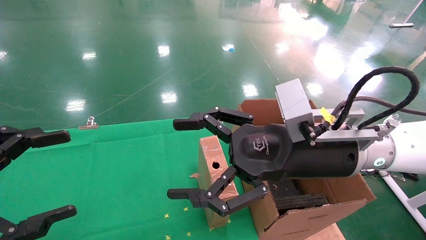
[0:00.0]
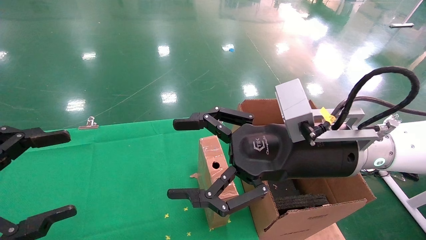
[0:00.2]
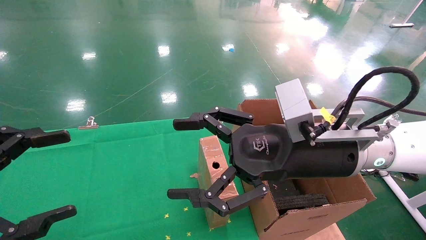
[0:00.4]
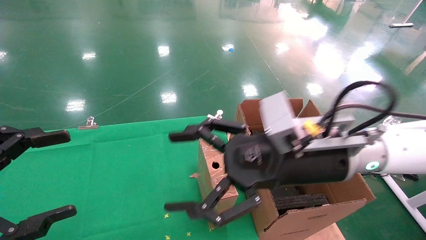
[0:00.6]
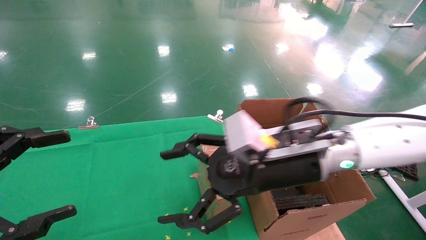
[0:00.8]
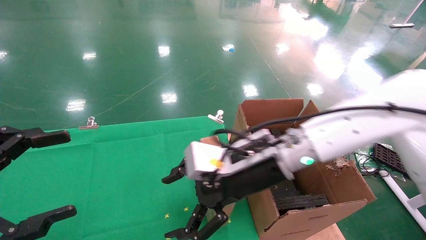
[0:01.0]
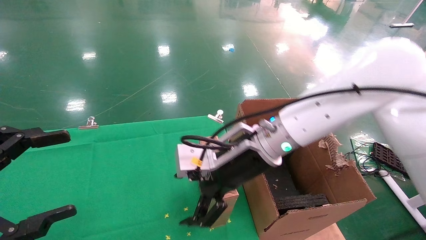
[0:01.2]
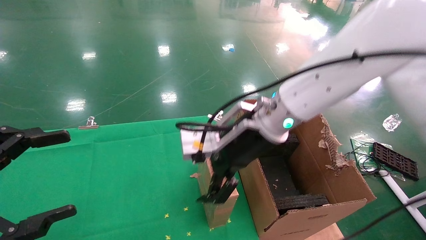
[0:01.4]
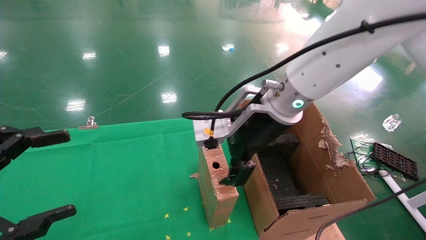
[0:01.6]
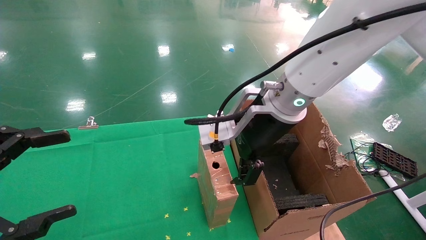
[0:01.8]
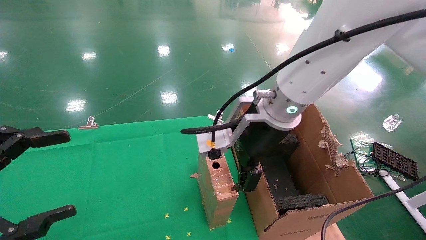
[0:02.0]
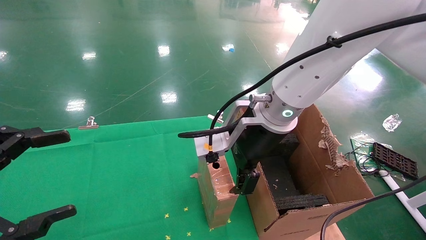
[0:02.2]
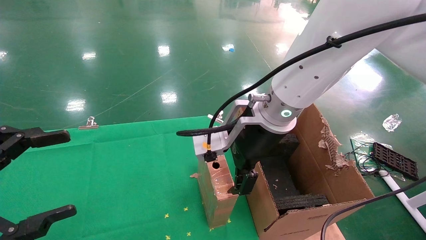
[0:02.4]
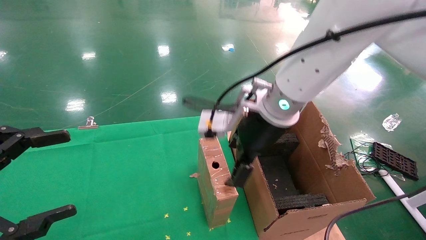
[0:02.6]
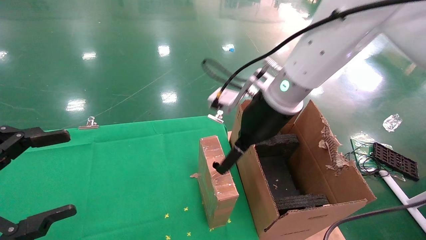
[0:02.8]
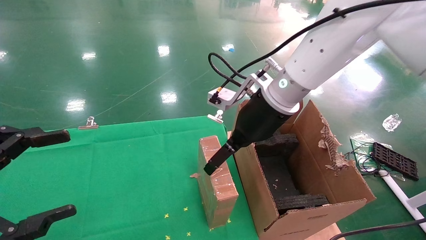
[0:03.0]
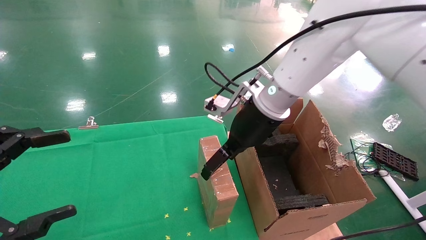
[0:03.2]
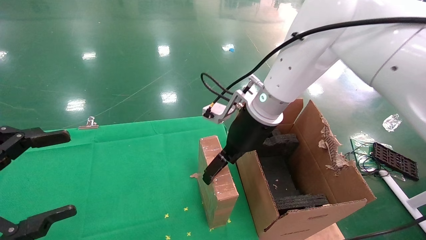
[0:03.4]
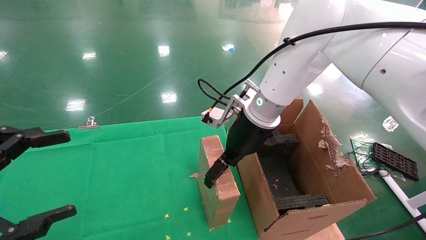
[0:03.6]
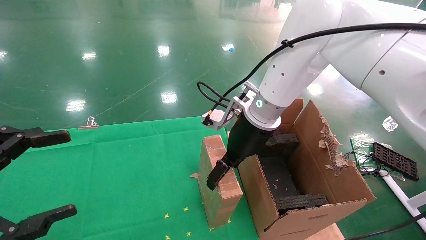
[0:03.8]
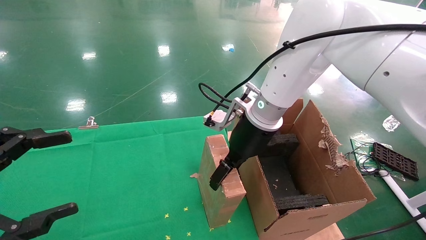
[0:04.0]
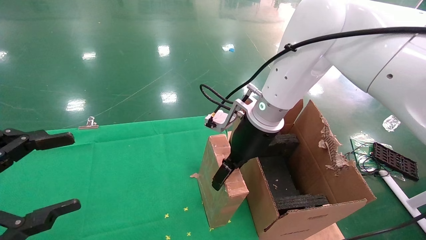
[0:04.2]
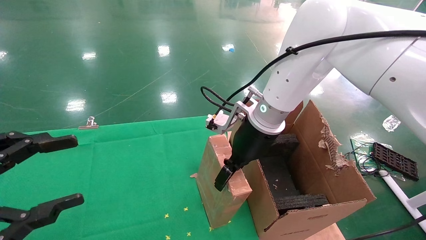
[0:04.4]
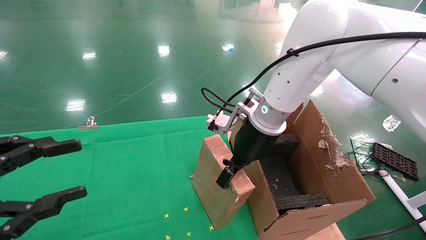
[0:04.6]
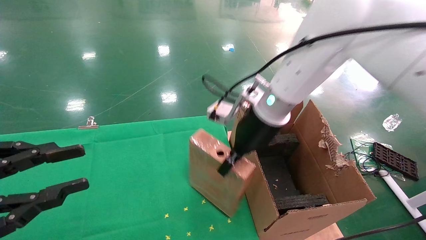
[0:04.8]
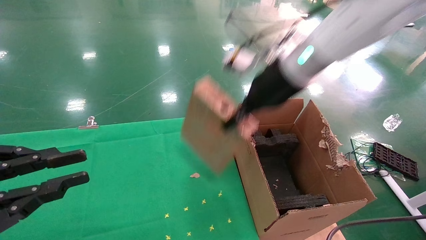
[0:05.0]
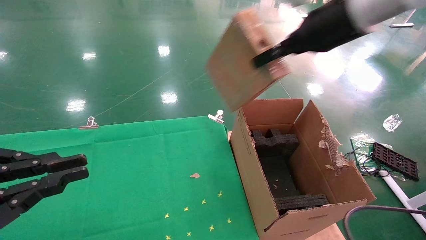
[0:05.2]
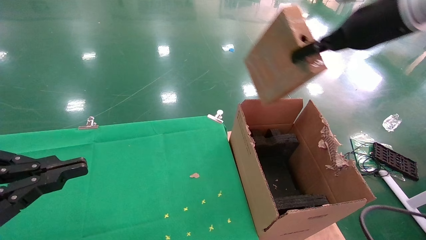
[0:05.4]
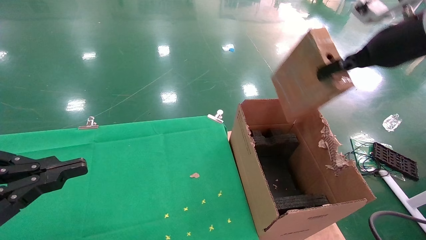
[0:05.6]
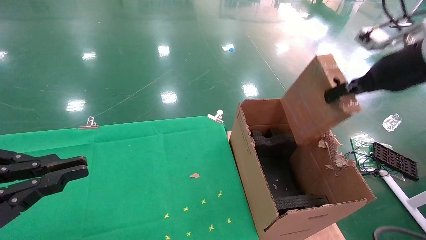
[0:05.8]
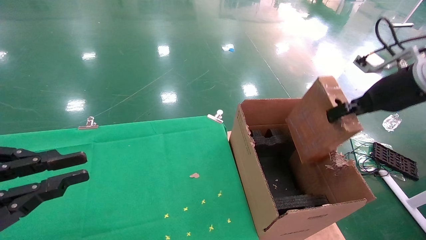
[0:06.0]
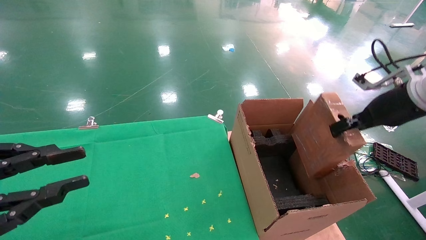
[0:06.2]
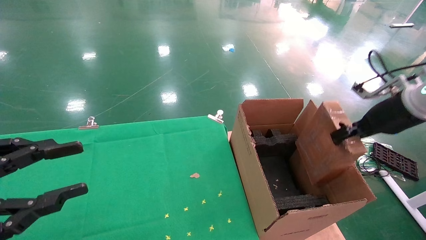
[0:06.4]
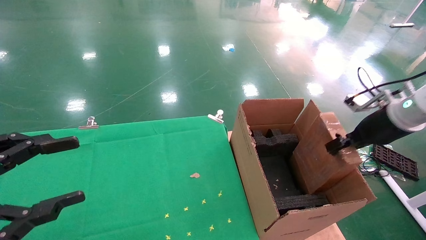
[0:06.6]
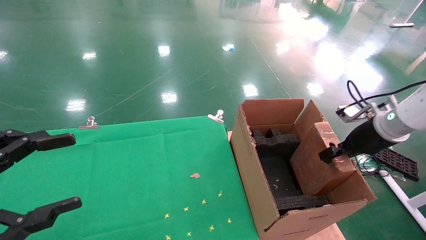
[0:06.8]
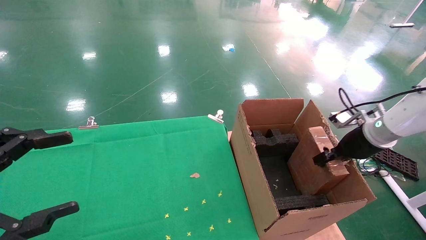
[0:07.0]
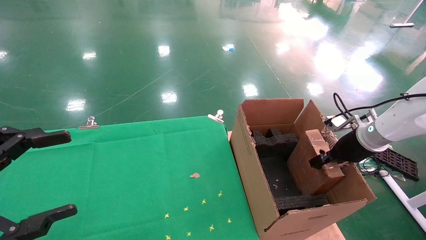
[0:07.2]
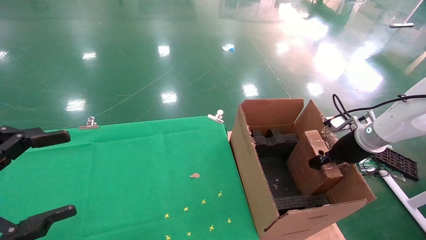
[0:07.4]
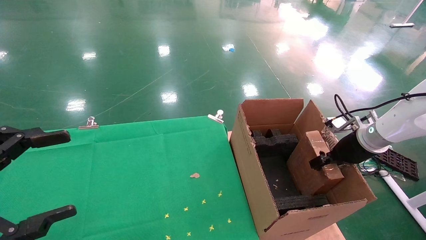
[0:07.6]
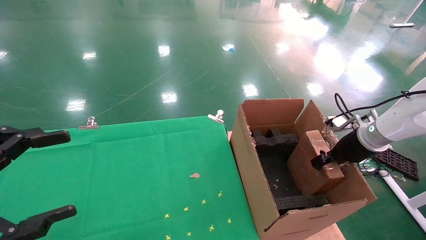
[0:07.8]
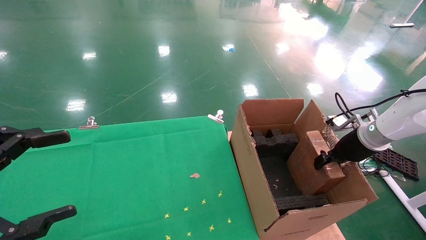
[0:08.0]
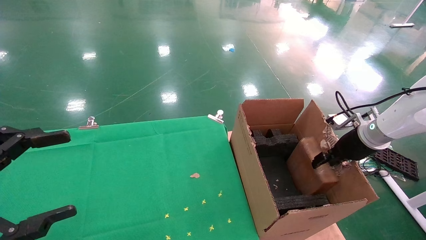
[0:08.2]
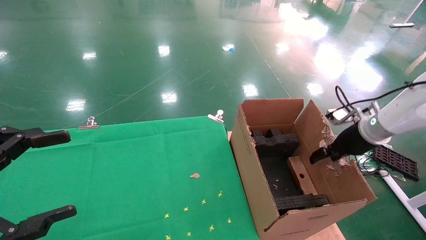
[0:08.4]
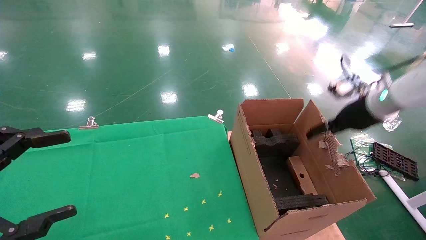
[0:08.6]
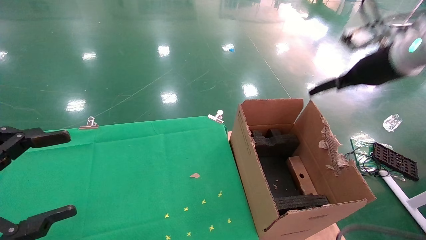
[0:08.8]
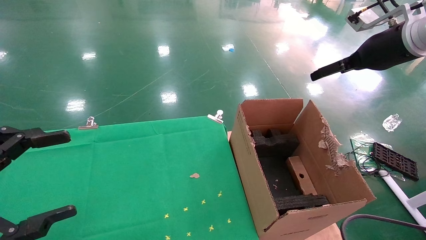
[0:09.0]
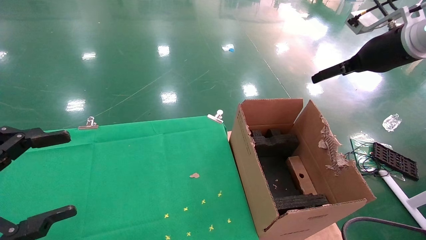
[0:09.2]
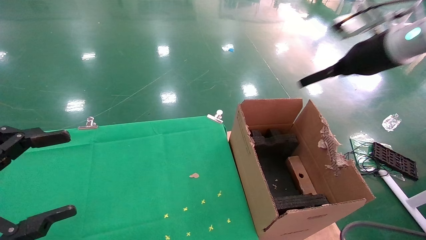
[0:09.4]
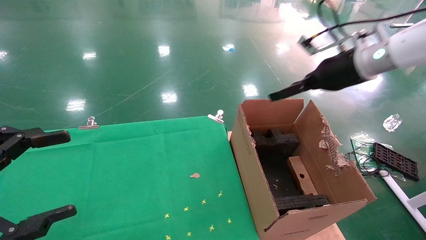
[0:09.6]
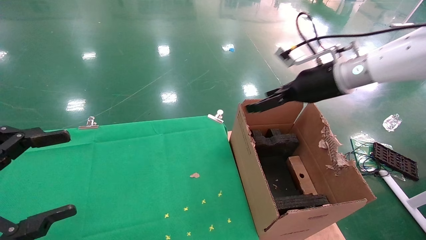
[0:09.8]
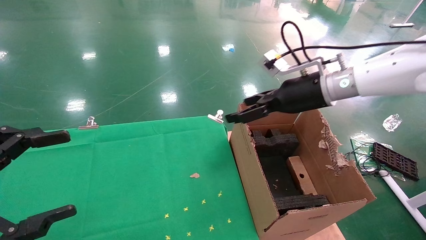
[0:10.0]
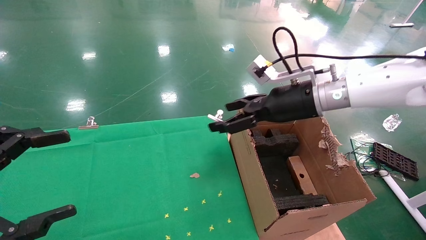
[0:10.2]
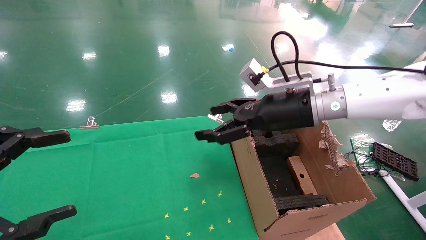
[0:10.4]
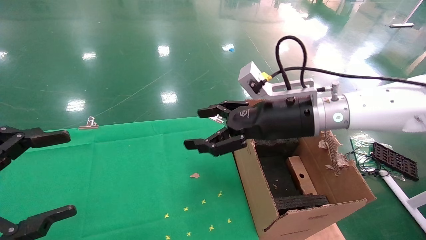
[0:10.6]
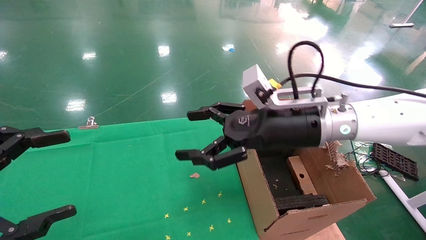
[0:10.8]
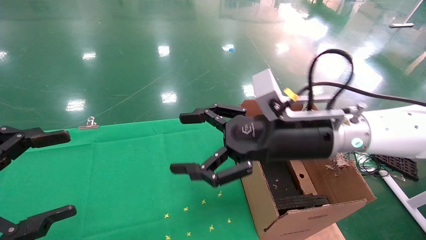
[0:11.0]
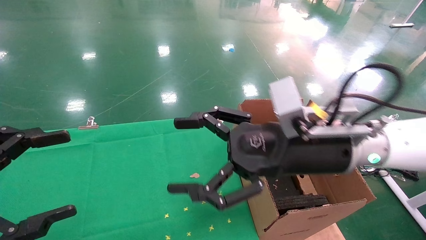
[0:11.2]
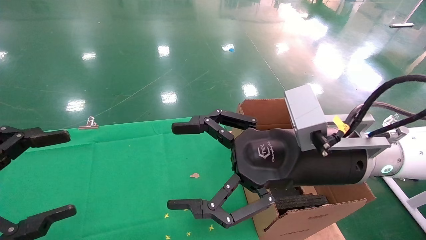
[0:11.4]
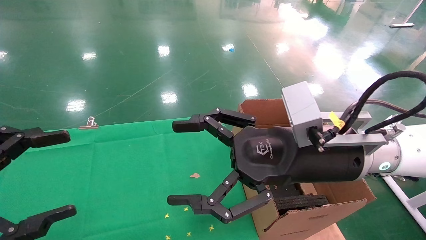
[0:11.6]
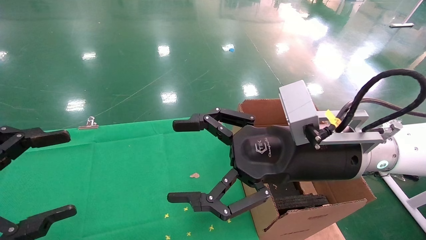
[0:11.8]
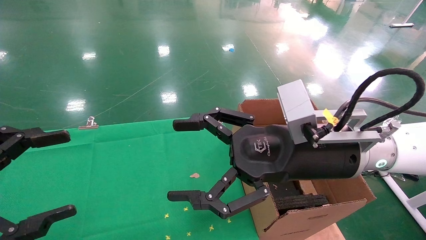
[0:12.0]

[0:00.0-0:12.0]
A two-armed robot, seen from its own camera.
Task of the whole recording: using a robotic arm to pick up a cardboard box and palace it the carton.
Step, 0:00.8 to 0:04.6: Pick up the mouse and the power cord paper box.
Step, 0:04.8 to 0:08.2: Place the mouse and the power cord paper box into the container.
0:00.0 to 0:01.6: The right gripper travels forward and to the left by approximately 10 cm.
0:01.6 to 0:03.0: The right gripper changes place by some 5 cm.
0:03.0 to 0:04.4: The right gripper closes.
0:04.4 to 0:06.0: The right gripper is displaced to the right by approximately 25 cm, and closes its fingers. Meanwhile the left gripper closes up.
0:06.0 to 0:07.6: The left gripper opens its fingers; the right gripper goes some 15 cm downward and forward.
0:07.6 to 0:09.0: The right gripper goes roughly 20 cm upward, and opens its fingers.
0:09.0 to 0:10.4: The right gripper is displaced to the left and downward by approximately 20 cm.
0:10.4 to 0:12.0: The right gripper is displaced backward by about 10 cm.

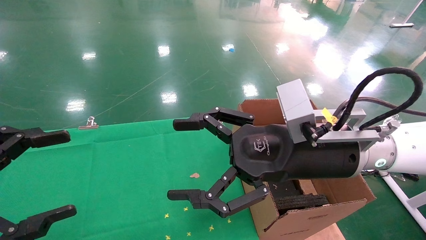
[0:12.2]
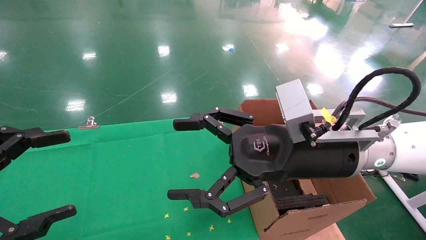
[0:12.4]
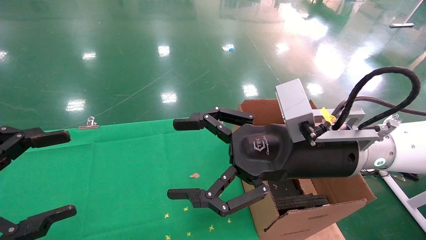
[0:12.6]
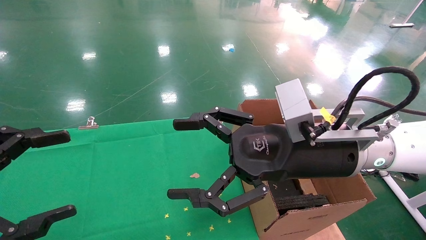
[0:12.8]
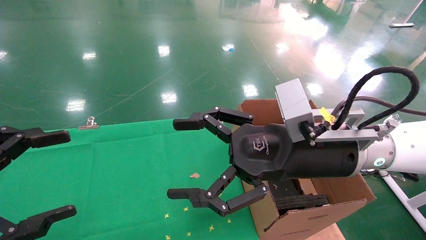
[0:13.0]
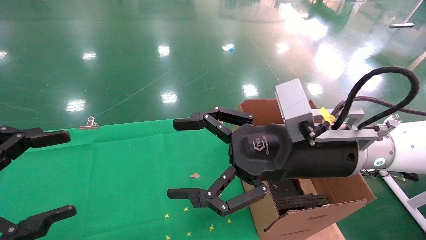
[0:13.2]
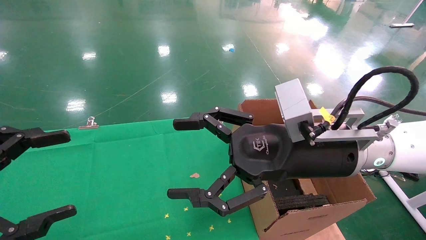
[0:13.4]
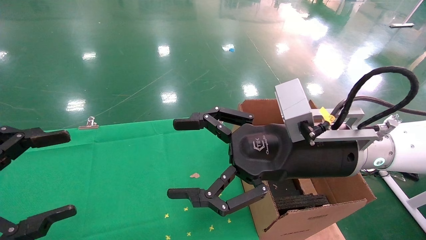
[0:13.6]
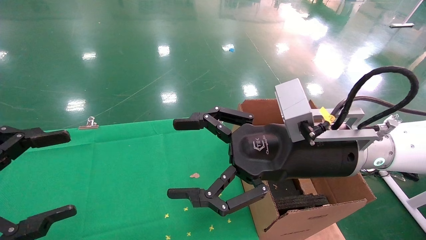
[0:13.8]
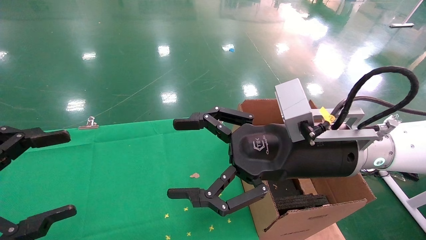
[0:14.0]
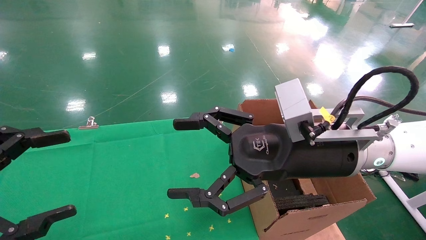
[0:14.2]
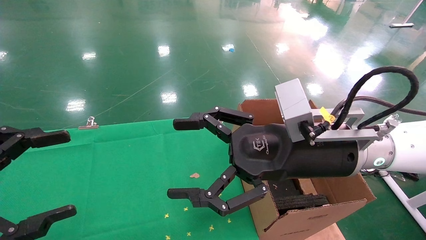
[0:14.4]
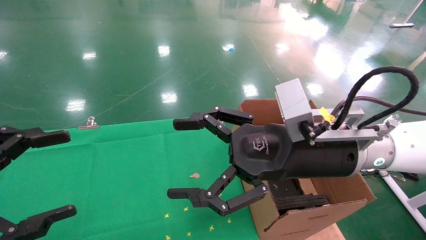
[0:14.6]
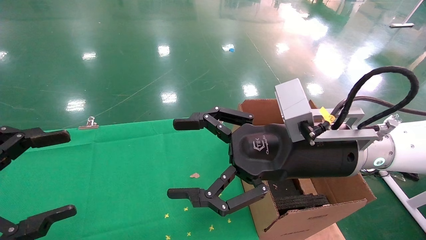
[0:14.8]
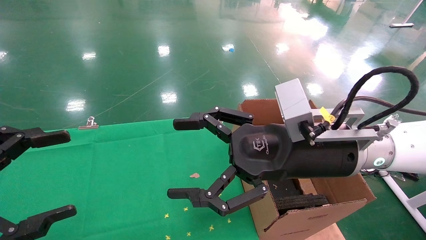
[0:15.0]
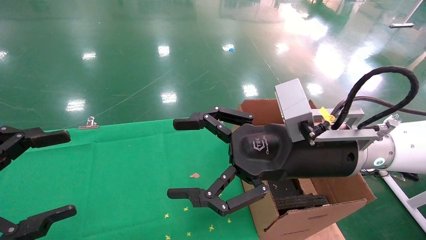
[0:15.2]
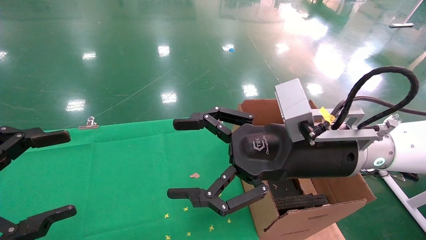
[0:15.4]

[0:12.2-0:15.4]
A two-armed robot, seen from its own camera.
Task of the whole recording: using a robotic arm to pick up a cardboard box and palace it the carton.
0:12.2 to 0:15.4: Both grippers stay put.
